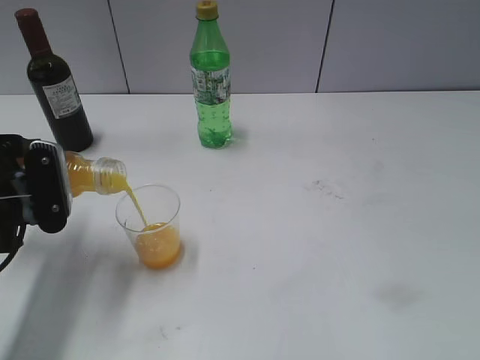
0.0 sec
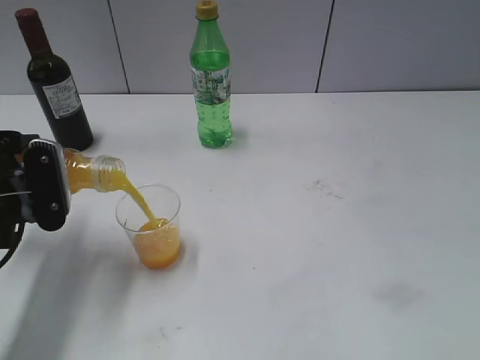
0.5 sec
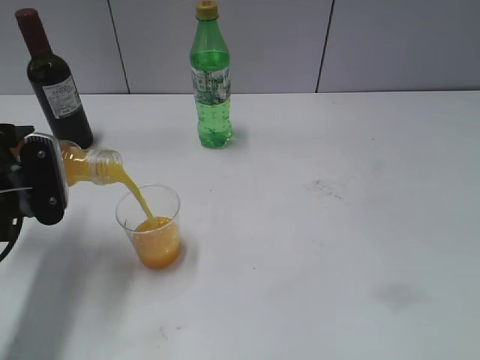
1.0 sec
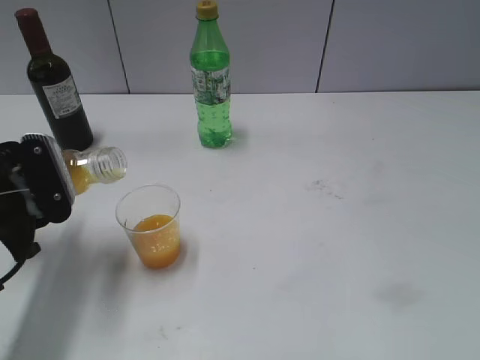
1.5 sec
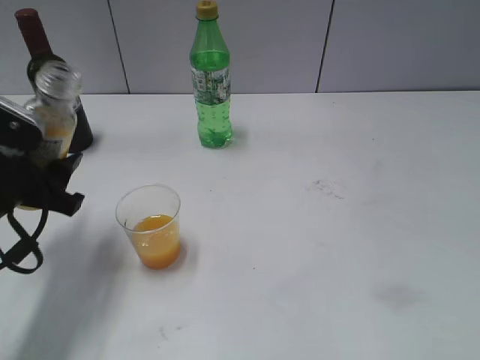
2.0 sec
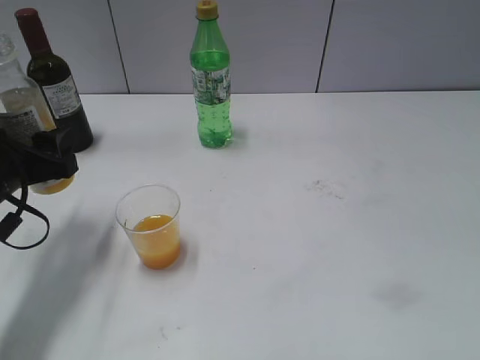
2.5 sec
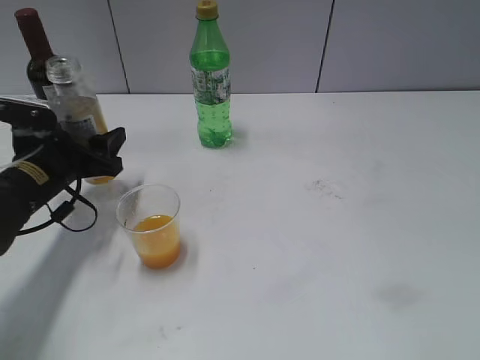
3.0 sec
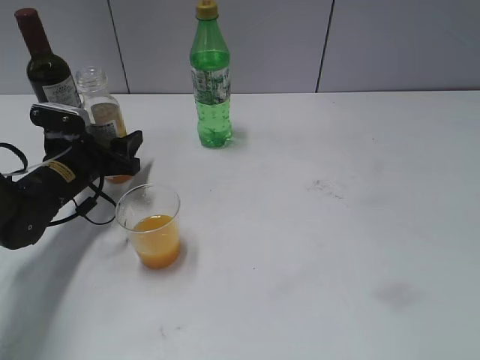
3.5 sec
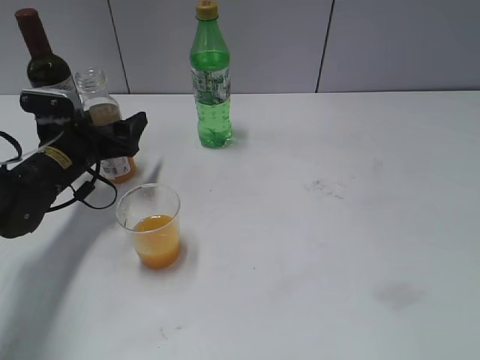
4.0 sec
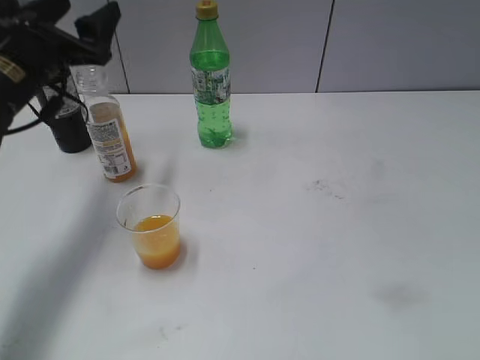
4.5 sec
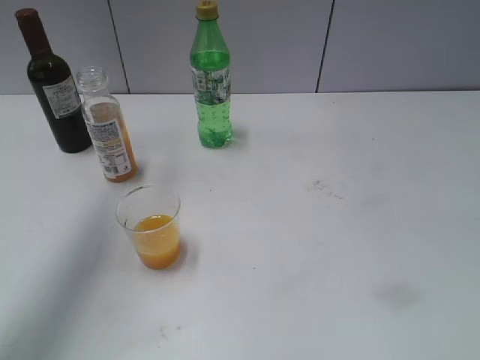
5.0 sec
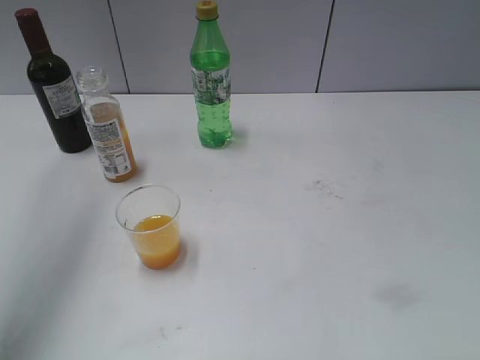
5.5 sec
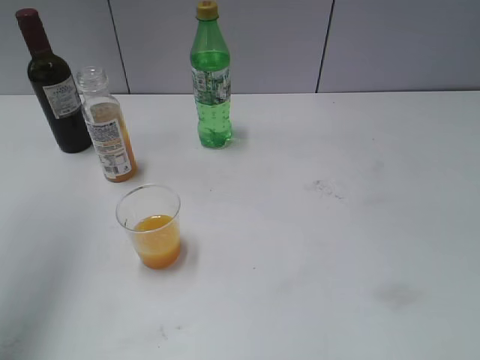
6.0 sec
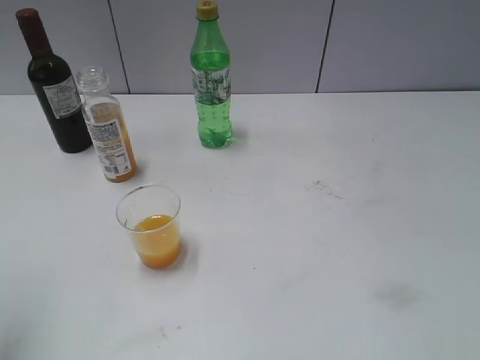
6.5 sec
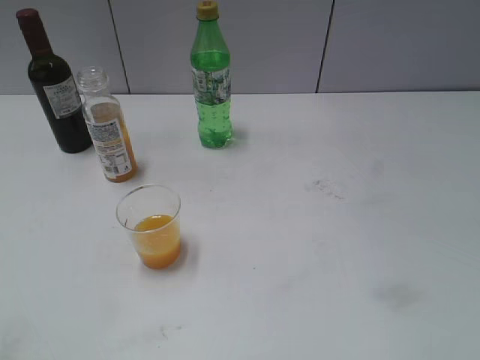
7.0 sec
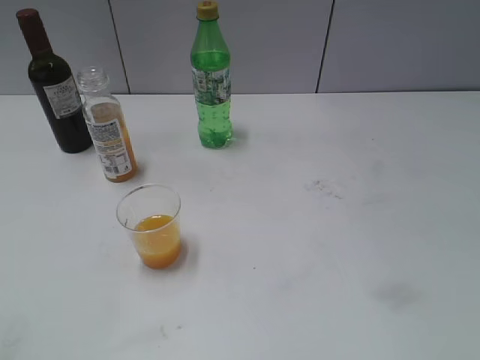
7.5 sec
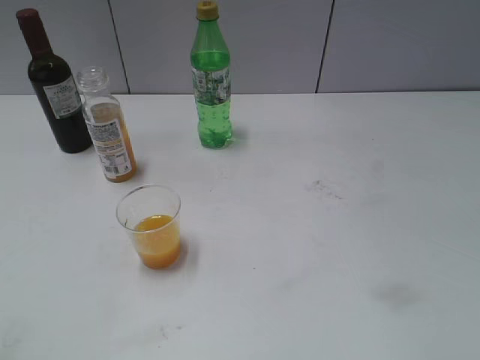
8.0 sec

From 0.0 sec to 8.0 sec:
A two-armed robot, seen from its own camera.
Step, from 2.0 sec to 3.5 sec: Place the orange juice bottle on the table with left gripper.
From 2.0 sec to 4.0 sec: The left gripper goes approximately 15 cm forward and downward, and opens.
From 4.0 sec to 6.0 sec: The left gripper travels upward by some 40 cm.
From 6.0 sec to 8.0 sec: The left gripper travels backward and downward by roughly 35 cm.
